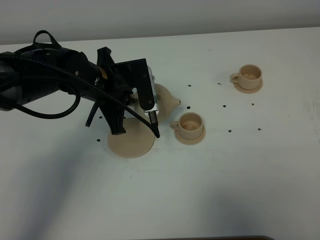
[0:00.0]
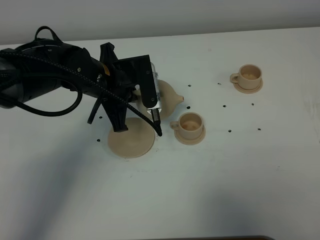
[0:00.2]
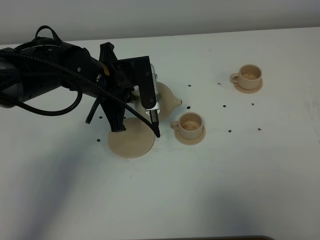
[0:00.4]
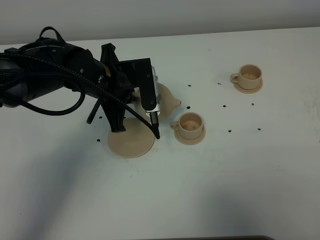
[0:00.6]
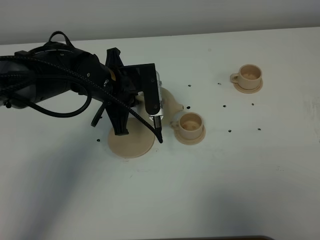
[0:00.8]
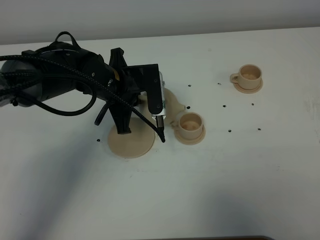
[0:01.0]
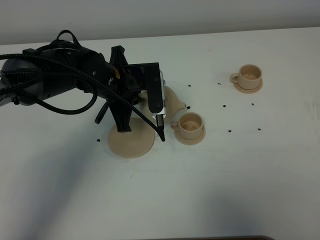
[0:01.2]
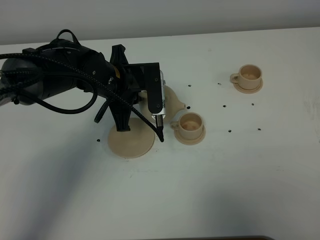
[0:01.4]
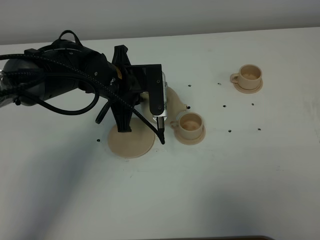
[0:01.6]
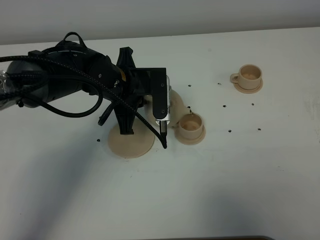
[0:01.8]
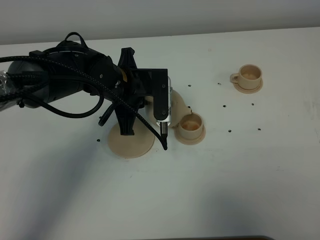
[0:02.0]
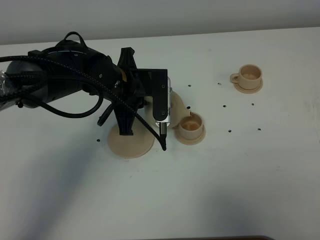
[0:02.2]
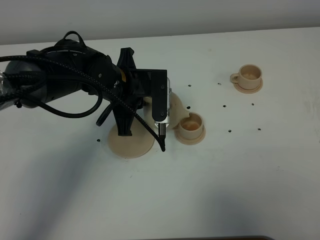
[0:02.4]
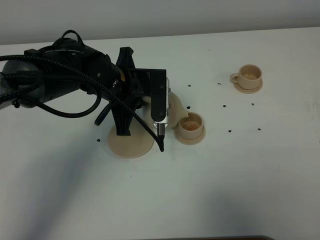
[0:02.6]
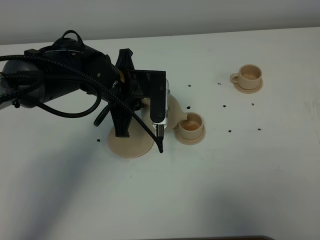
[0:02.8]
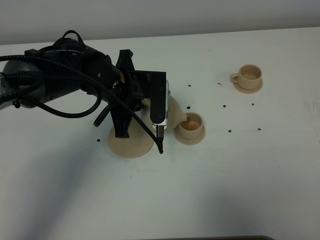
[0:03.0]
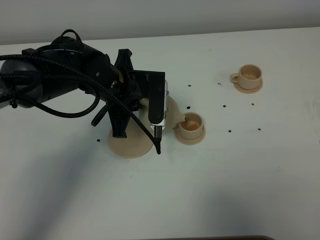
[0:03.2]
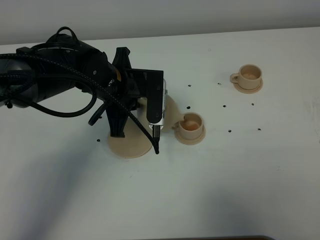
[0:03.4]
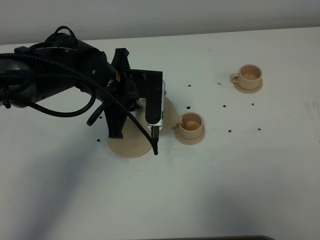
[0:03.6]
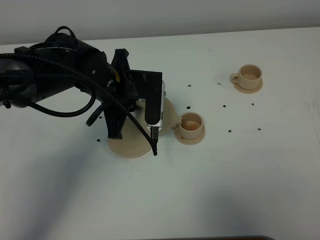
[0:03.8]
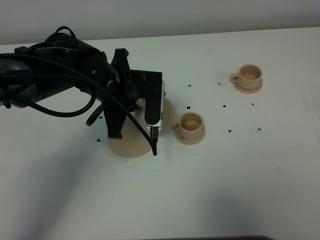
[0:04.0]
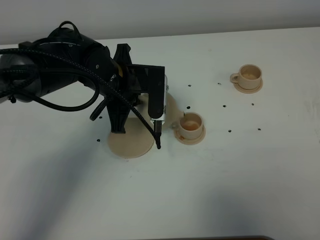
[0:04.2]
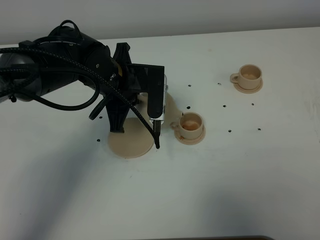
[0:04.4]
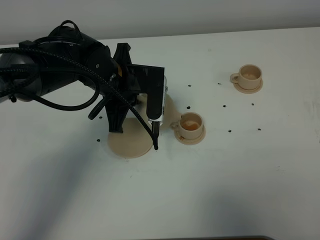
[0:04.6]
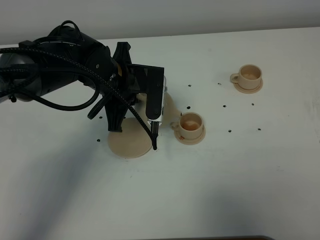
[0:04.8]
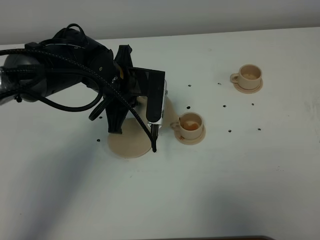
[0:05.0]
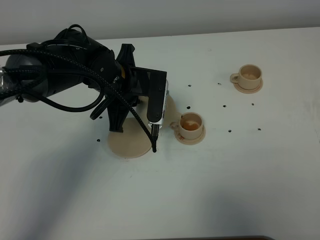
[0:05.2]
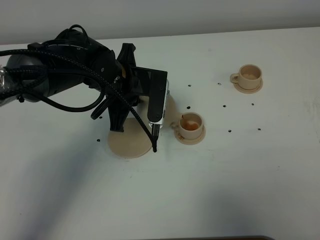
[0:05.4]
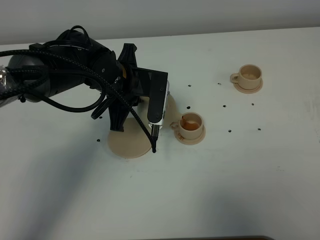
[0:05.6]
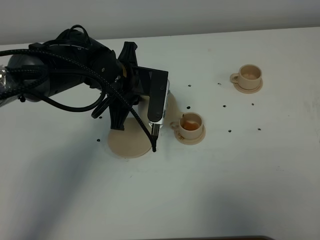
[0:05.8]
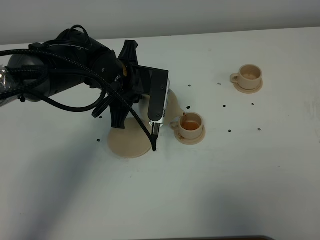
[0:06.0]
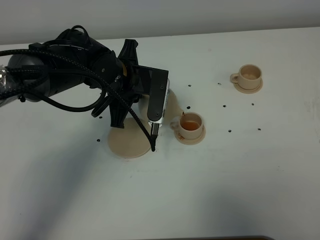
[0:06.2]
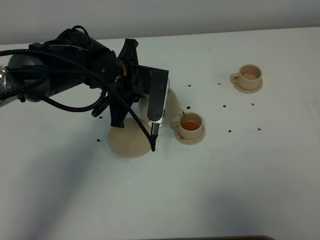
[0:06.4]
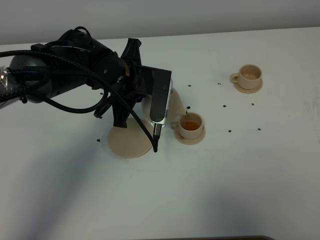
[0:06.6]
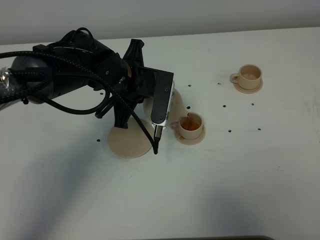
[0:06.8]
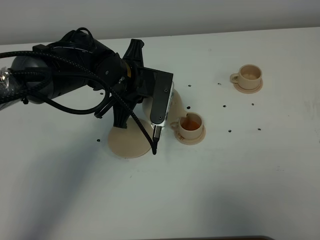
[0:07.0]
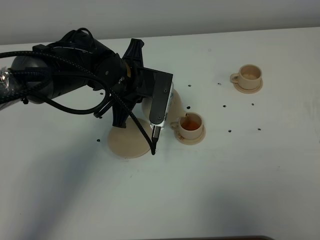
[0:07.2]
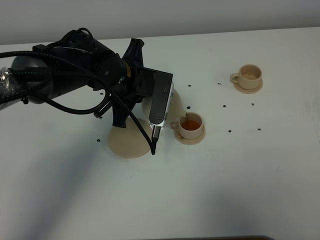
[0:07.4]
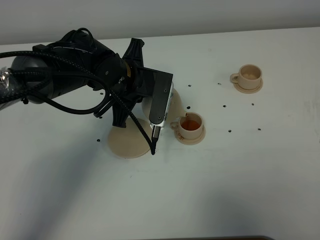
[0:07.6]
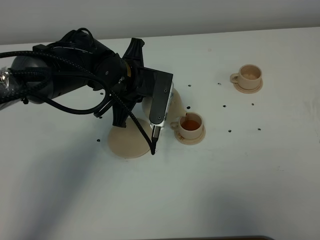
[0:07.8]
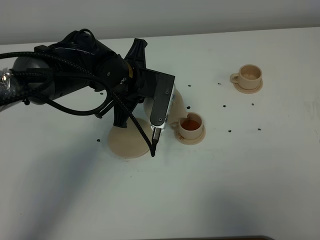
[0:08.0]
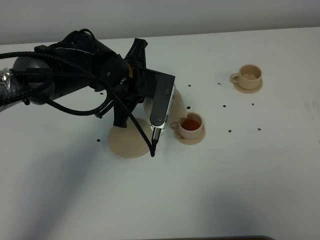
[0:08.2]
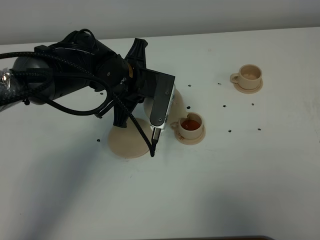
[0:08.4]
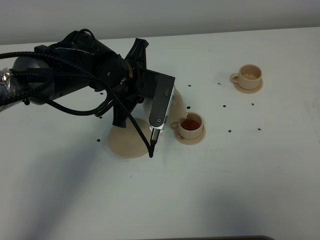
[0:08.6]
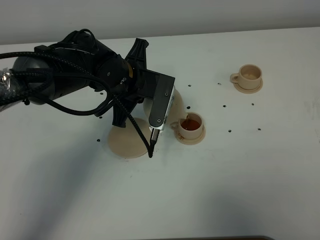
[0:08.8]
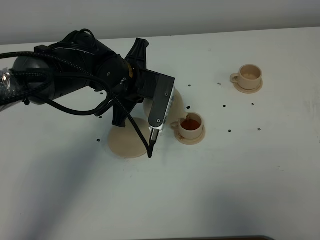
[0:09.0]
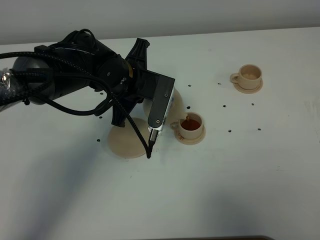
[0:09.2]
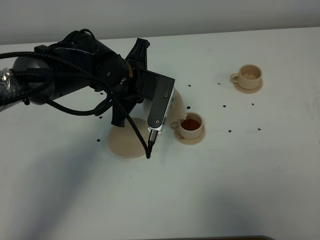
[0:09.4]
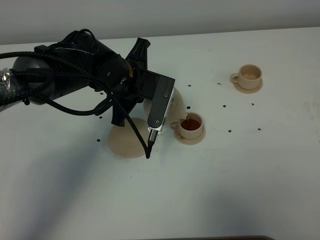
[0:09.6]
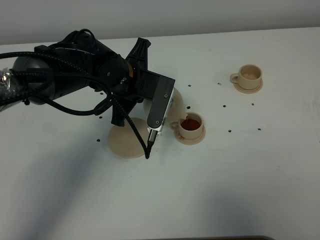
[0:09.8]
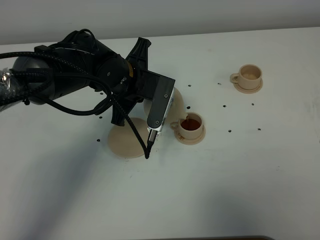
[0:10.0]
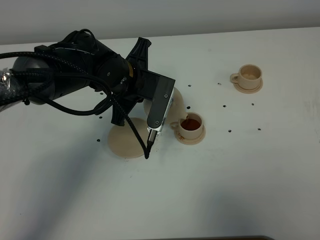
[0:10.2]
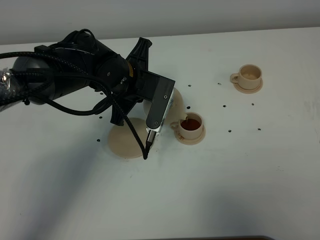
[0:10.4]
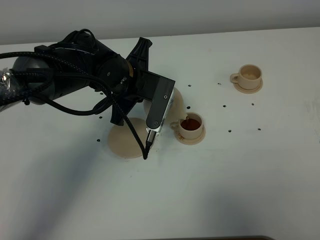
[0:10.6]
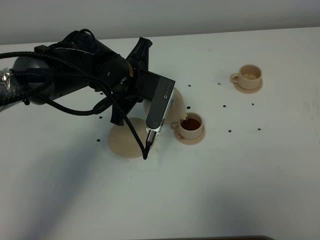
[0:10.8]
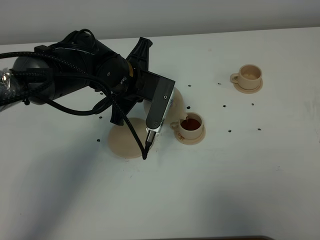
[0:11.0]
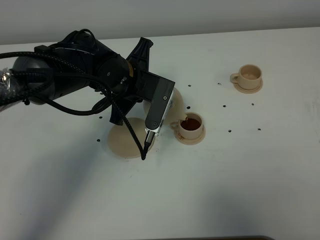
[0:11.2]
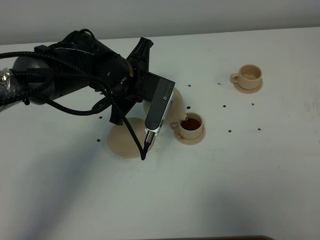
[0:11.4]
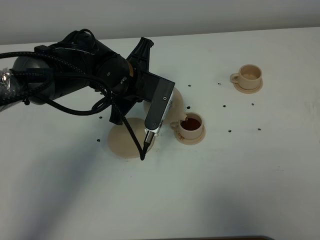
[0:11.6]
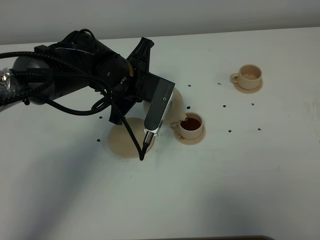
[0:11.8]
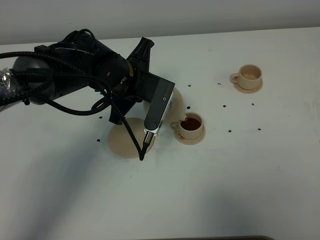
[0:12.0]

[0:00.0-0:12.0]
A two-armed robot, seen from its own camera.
Task of the whole recording: grasp the brown teapot and pour the tea into the two brown teacups one by one, put the brown teapot back in its original place.
0:00.0 to 0:01.6: The grippers stay close to where they were, moving slightly.
0:01.6 to 0:03.0: Neither gripper changes place.
0:03.0 to 0:06.0: The grippers move only a little.
0:06.0 to 0:07.6: Both grippers stay put.
0:07.6 to 0:09.0: Both grippers stay about where they are.
0:09.0 to 0:10.4: The two grippers keep their place.
0:10.4 to 0:12.0: Both grippers stay put.

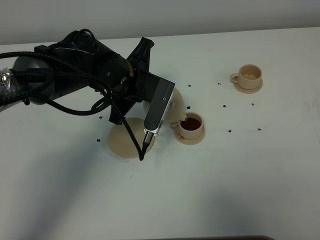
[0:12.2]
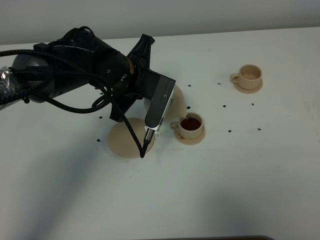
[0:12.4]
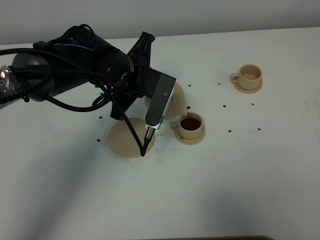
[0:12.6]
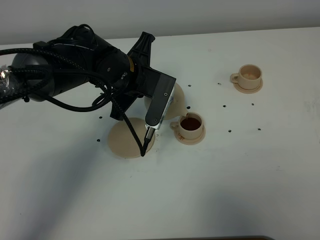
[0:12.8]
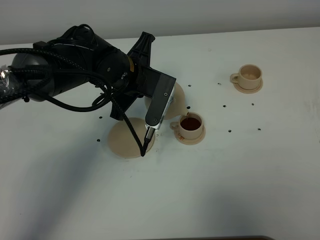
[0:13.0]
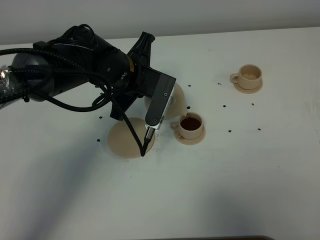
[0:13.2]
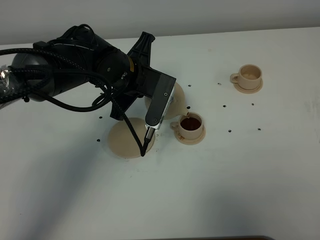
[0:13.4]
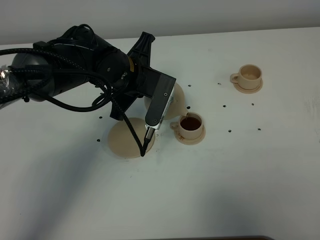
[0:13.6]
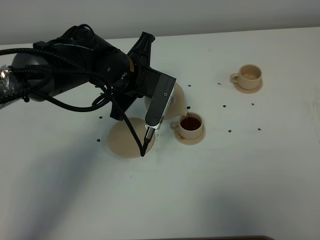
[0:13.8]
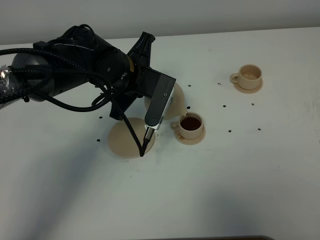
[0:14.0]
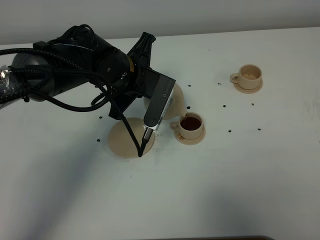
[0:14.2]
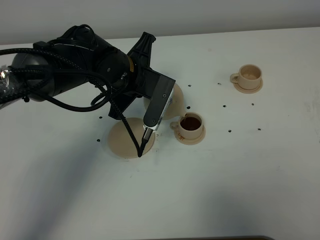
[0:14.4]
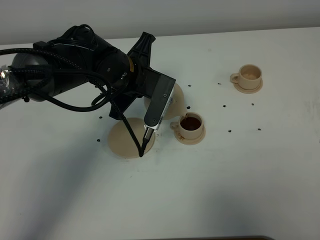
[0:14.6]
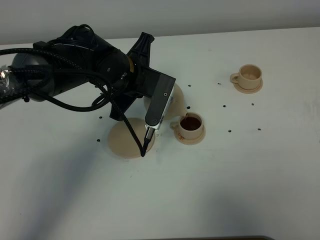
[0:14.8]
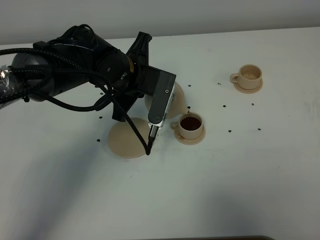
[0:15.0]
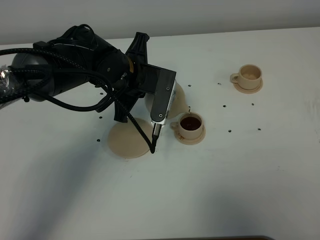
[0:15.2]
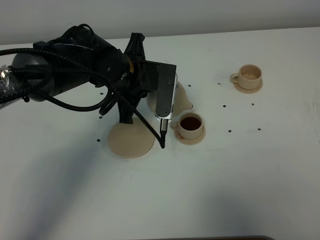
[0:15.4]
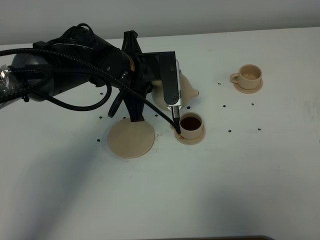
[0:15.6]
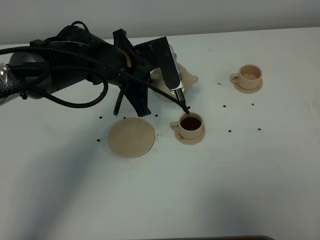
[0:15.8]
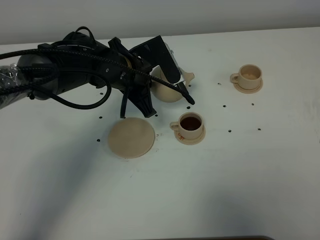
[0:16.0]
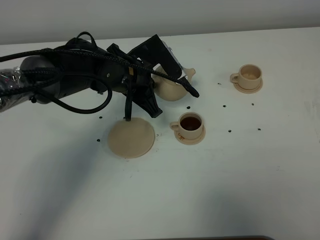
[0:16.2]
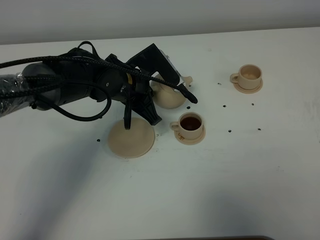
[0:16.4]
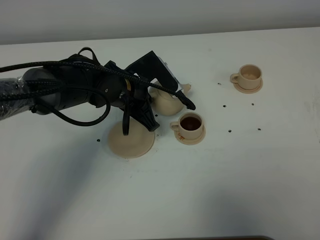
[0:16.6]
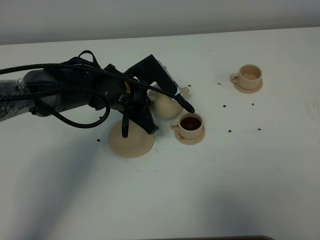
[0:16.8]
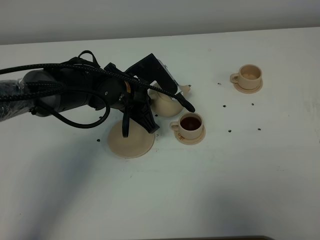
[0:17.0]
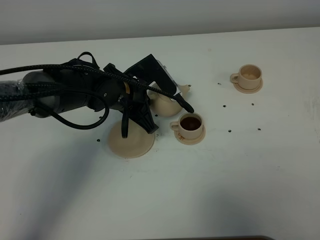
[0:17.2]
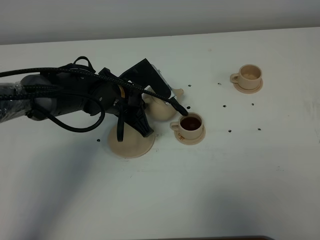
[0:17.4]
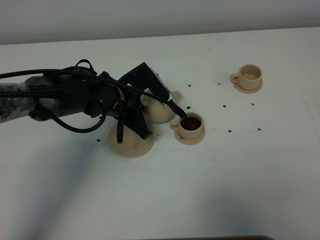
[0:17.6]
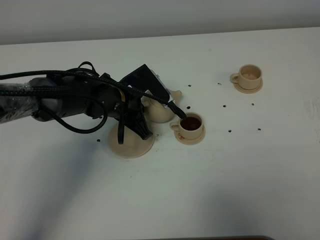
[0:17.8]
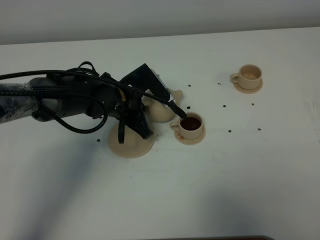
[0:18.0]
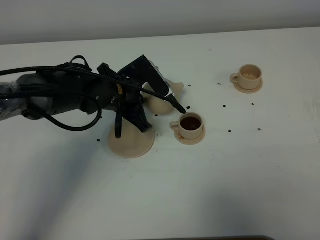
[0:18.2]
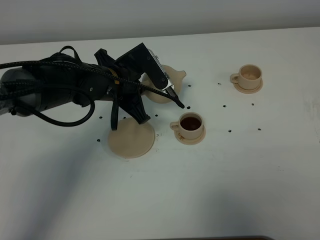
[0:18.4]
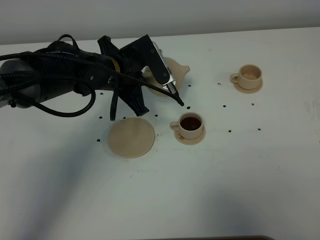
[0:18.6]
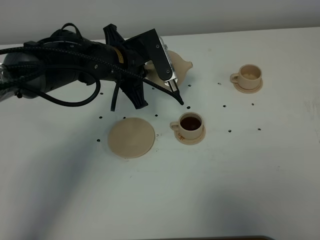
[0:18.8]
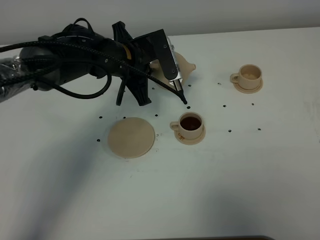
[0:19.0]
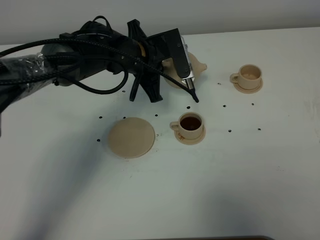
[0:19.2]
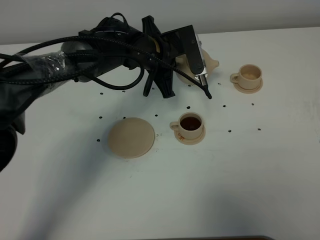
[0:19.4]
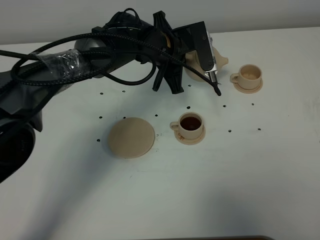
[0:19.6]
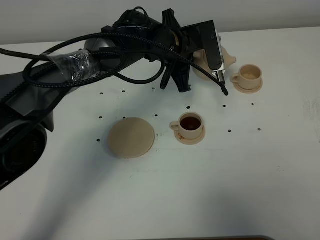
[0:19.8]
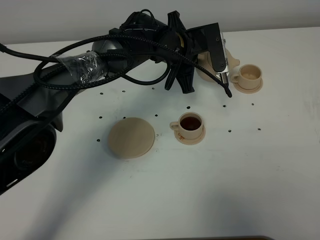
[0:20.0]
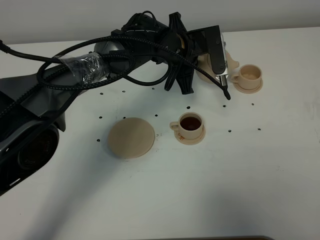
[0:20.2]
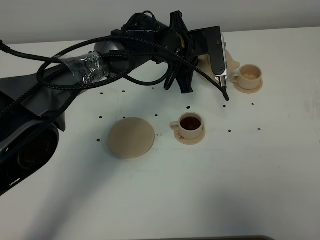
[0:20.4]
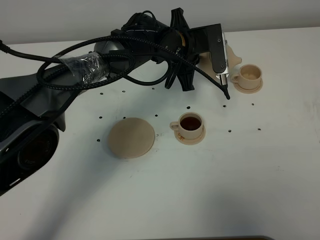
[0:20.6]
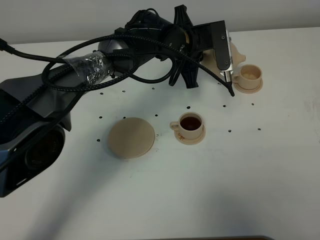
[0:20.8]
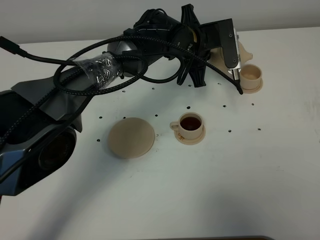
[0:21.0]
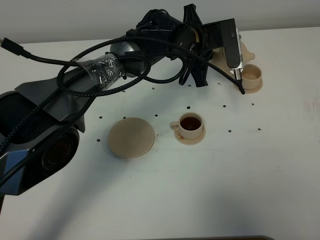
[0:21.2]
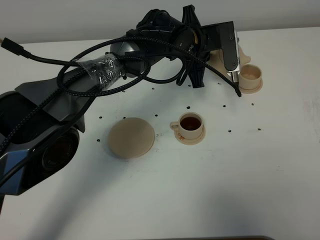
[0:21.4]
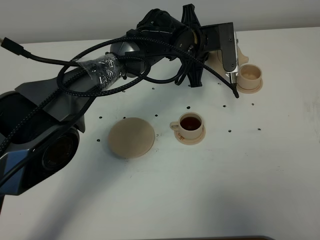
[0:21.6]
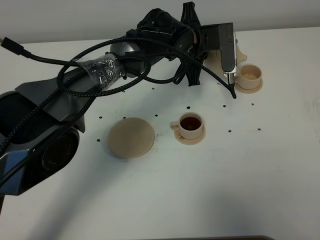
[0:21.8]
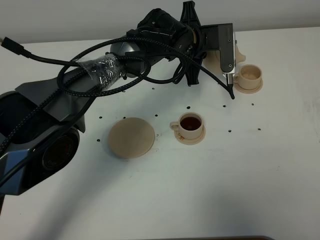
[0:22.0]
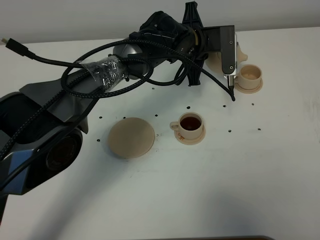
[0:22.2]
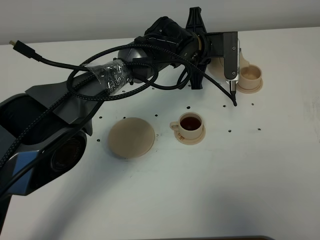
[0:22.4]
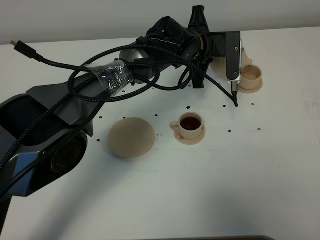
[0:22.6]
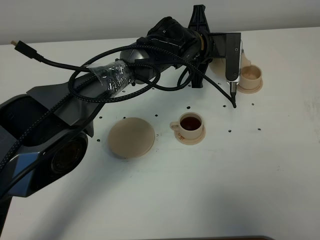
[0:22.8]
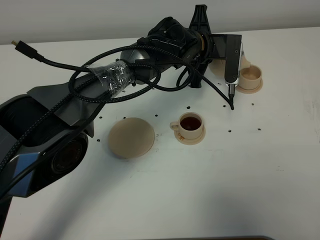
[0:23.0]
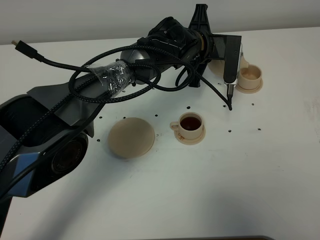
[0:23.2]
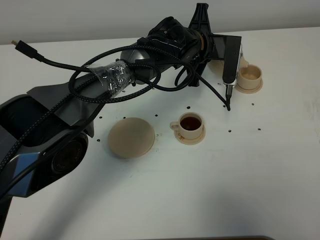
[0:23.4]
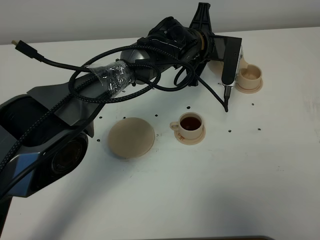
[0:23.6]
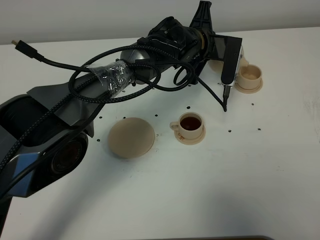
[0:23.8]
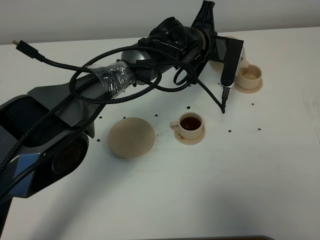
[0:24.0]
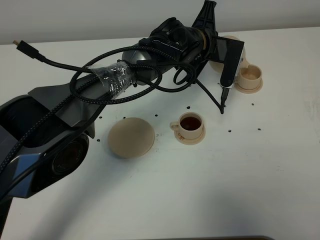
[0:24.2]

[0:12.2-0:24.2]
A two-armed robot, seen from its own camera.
Task of the whole recording: grasp the brown teapot and pour the tea into the two brown teacups one by one, put the brown teapot back in its original place.
Step, 0:12.2 to 0:15.2: Pour tea into the teacup with the left gripper.
0:12.2 to 0:13.8: Neither gripper changes place.
0:13.8 to 0:15.2: The grippers move only a little.
0:15.2 to 0:16.6: The left gripper moves about 5 cm.
0:16.6 to 0:18.2: There are only small adjustments of the grippers.
0:18.2 to 0:19.8: The left gripper travels to the right and forward by about 15 cm.
0:21.2 to 0:22.6: The grippers make only small movements.
0:22.6 to 0:24.2: The grippers stay close to where they were, moving slightly.
